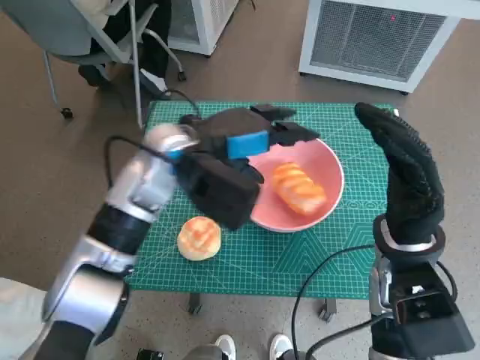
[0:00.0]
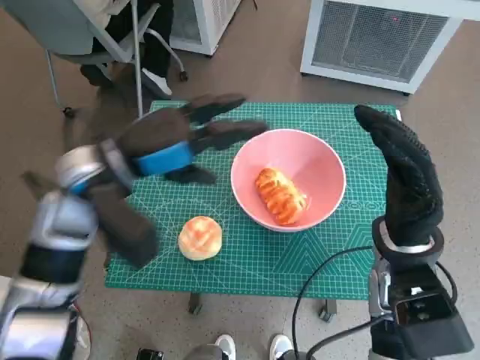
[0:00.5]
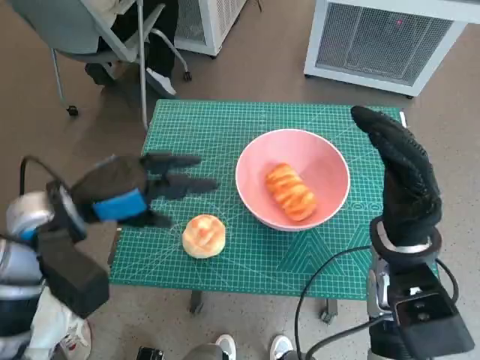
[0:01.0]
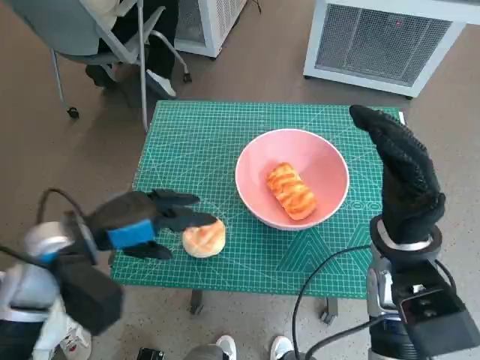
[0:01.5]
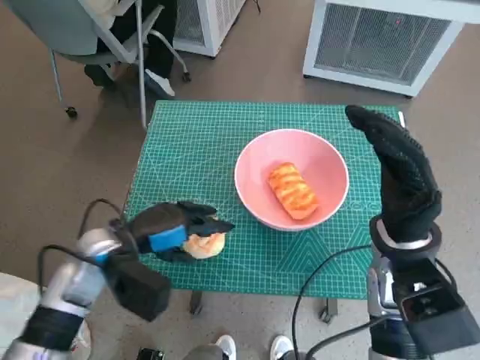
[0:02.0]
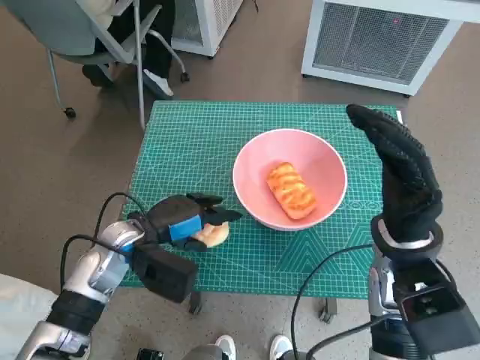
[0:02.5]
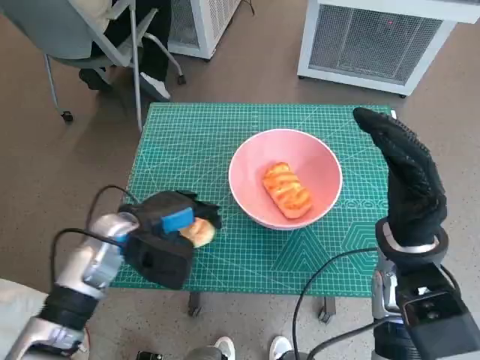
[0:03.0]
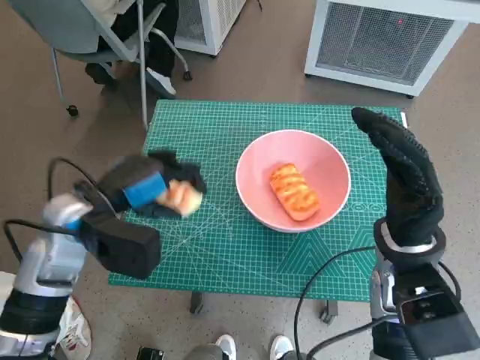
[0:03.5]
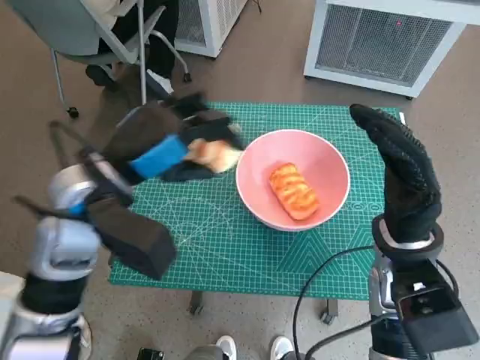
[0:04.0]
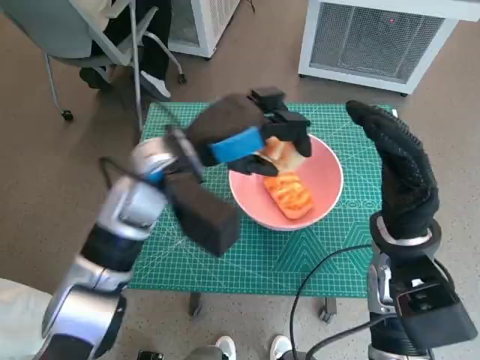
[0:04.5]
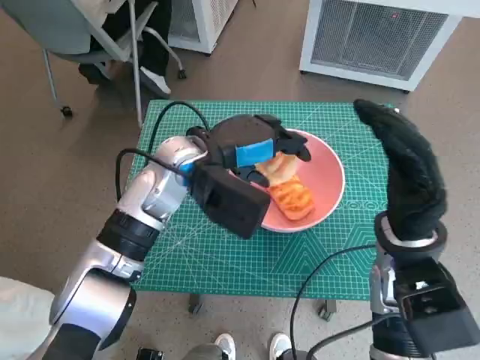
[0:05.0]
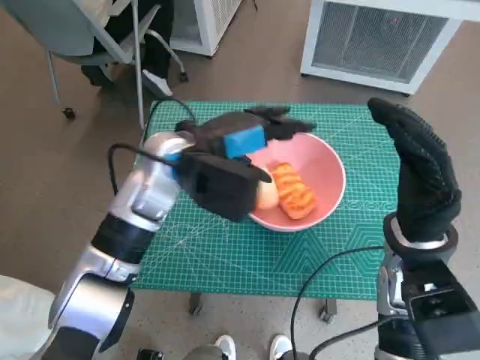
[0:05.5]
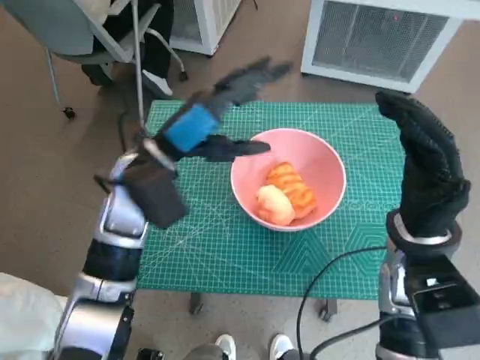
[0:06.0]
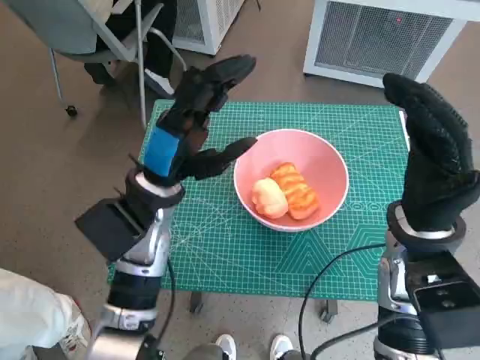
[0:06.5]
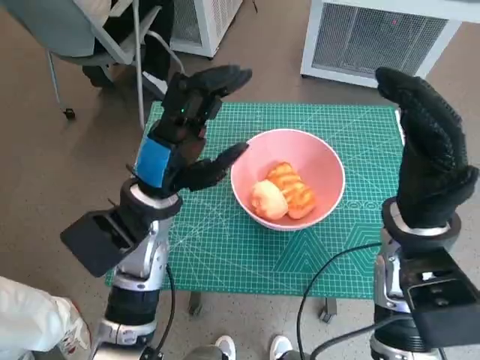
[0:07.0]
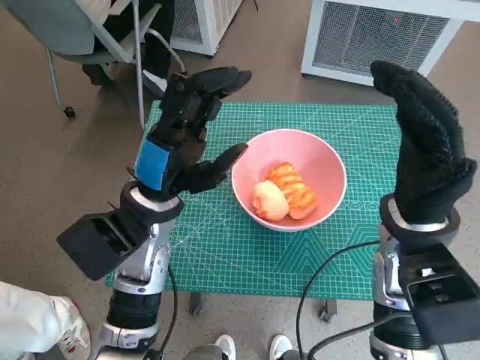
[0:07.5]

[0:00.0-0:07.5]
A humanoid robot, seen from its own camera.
Task of the whole recording: Push the bowl to the center of the table and put the bread into the bowl.
Step, 0:01.0 to 0:02.0: Grasp the round bread with left hand.
Step, 0:03.0 to 0:05.5: Place the round bread in pink bowl with left hand.
0:00.0 to 0:02.0: The left hand is displaced to the left, downward and backward by roughly 20 cm.
0:02.0 to 0:04.0: The left hand travels upward by approximately 10 cm.
0:04.0 to 0:05.5: The left hand is displaced to the right and forward by about 10 cm.
0:05.5 to 0:07.5: The left hand shifts approximately 5 cm backward.
